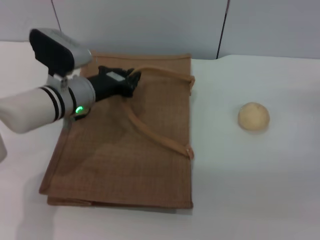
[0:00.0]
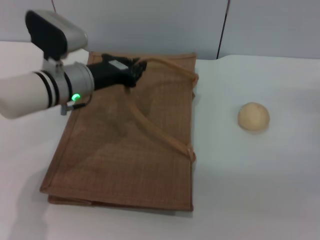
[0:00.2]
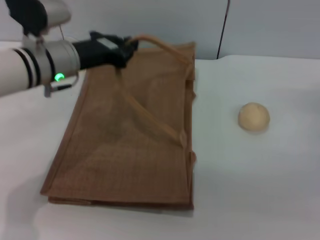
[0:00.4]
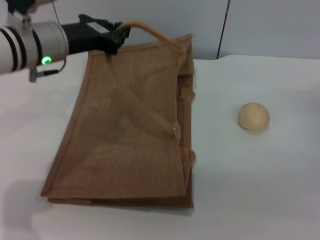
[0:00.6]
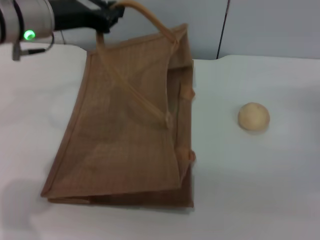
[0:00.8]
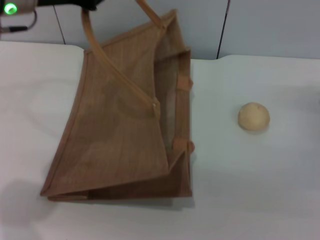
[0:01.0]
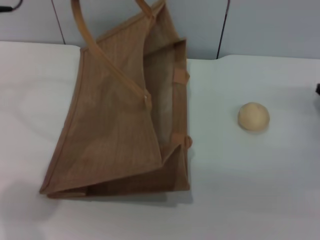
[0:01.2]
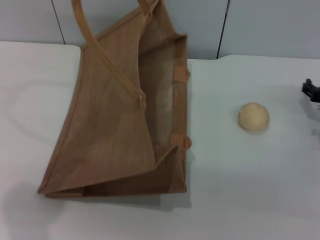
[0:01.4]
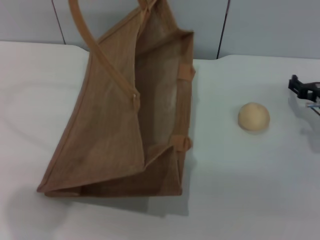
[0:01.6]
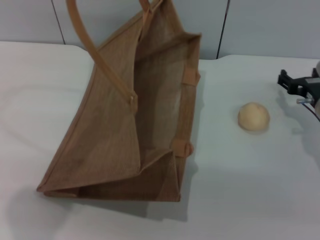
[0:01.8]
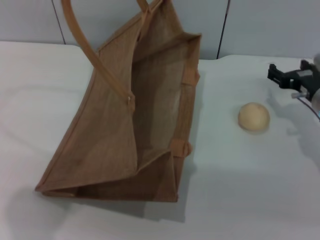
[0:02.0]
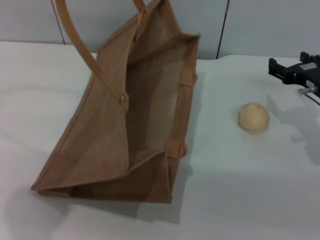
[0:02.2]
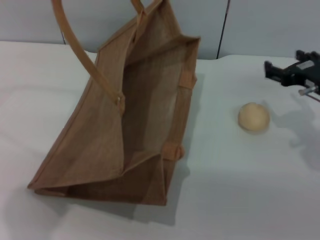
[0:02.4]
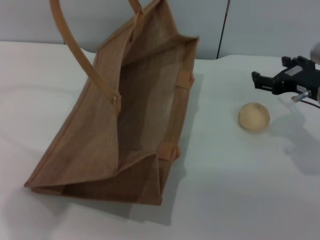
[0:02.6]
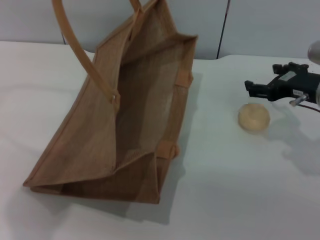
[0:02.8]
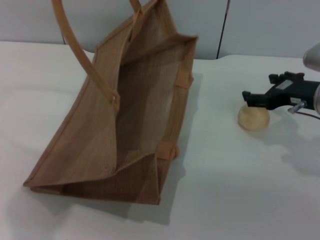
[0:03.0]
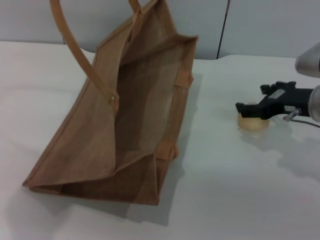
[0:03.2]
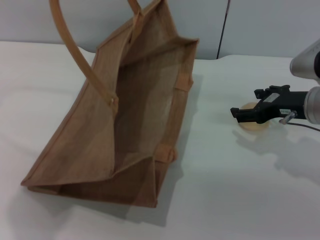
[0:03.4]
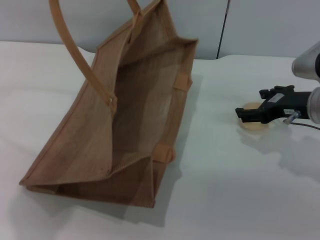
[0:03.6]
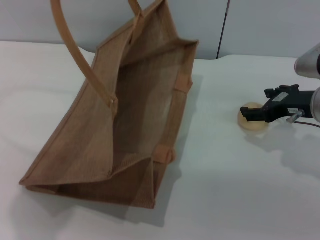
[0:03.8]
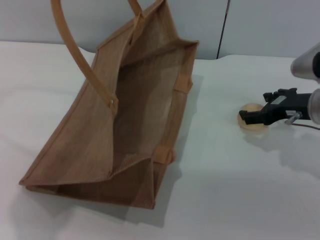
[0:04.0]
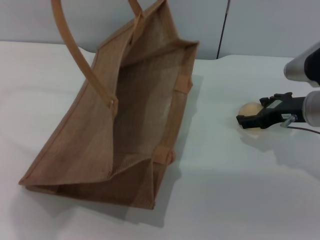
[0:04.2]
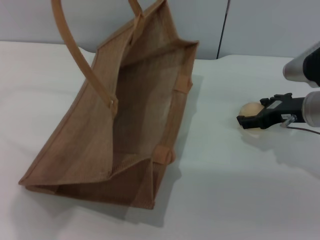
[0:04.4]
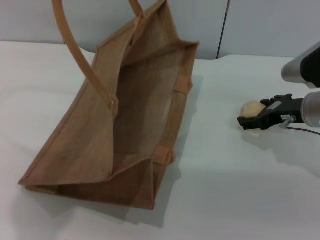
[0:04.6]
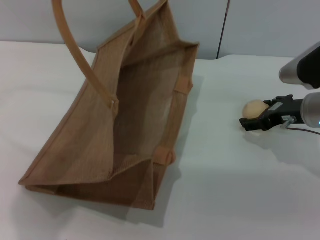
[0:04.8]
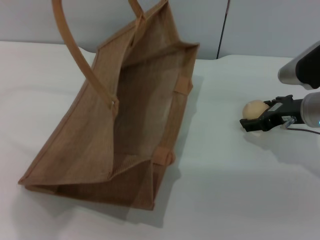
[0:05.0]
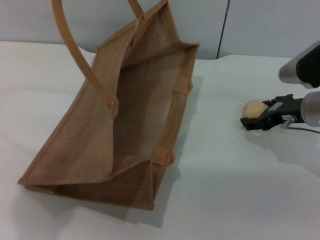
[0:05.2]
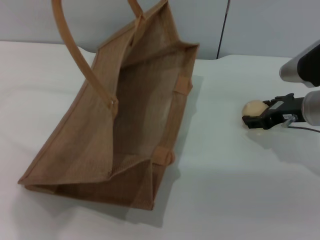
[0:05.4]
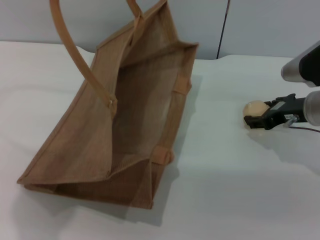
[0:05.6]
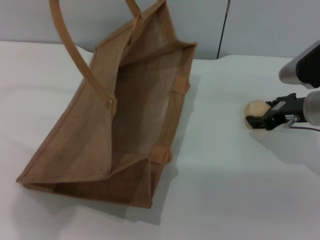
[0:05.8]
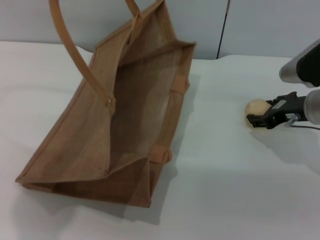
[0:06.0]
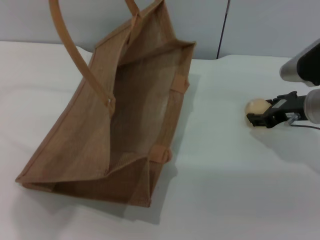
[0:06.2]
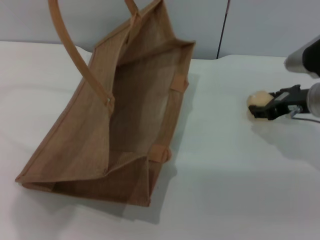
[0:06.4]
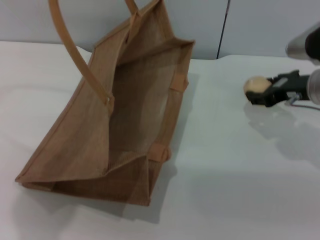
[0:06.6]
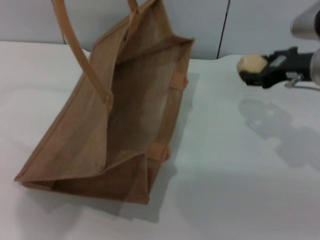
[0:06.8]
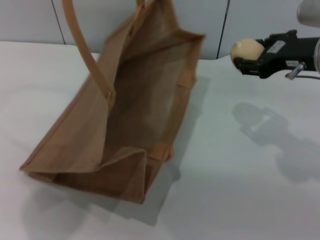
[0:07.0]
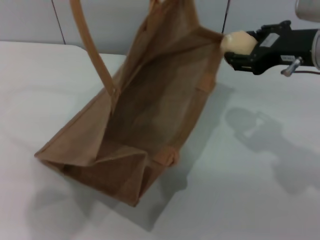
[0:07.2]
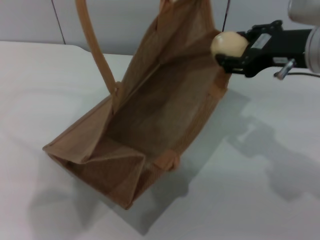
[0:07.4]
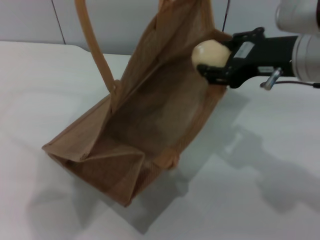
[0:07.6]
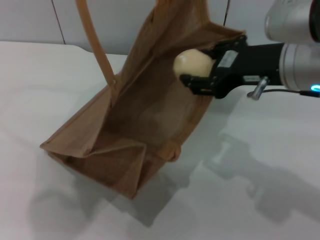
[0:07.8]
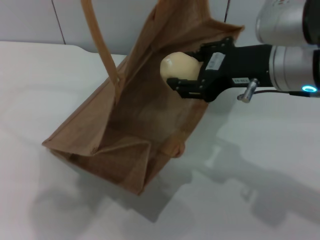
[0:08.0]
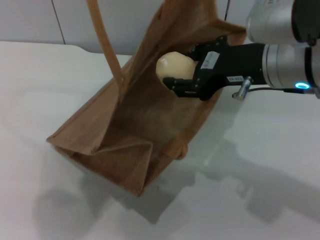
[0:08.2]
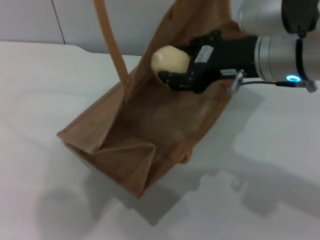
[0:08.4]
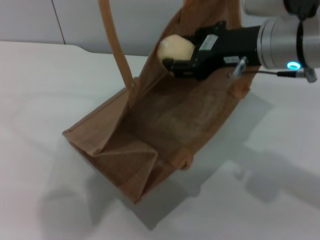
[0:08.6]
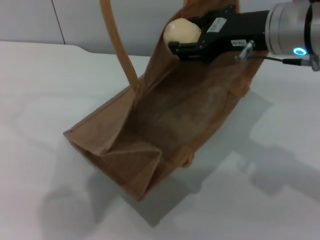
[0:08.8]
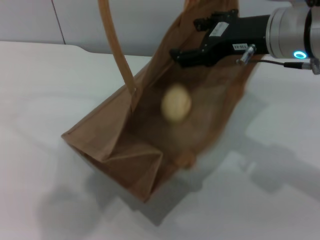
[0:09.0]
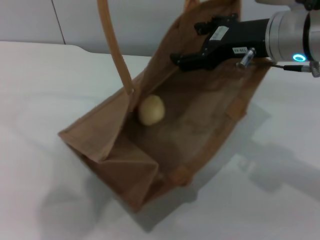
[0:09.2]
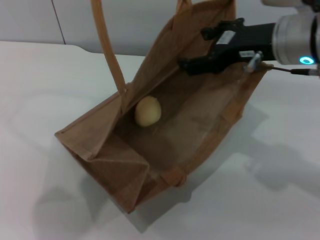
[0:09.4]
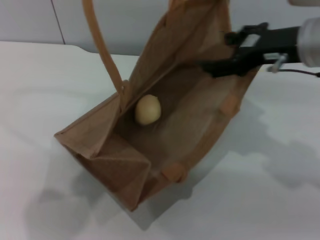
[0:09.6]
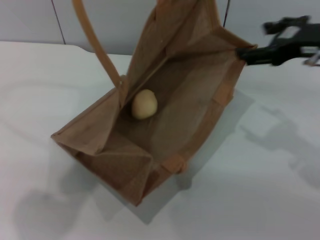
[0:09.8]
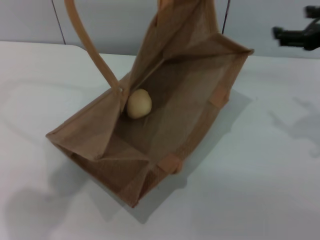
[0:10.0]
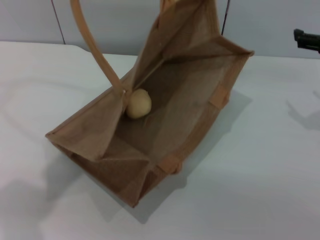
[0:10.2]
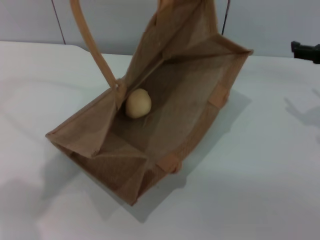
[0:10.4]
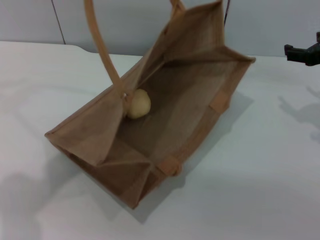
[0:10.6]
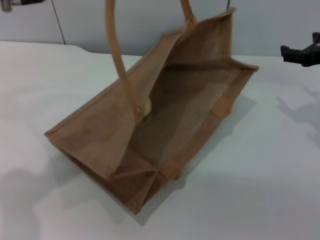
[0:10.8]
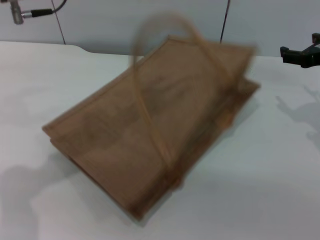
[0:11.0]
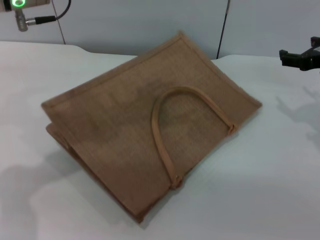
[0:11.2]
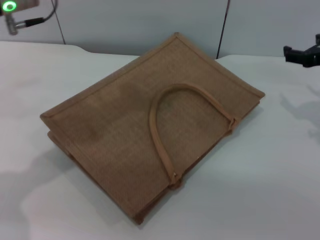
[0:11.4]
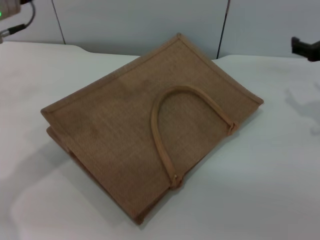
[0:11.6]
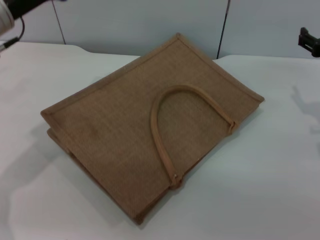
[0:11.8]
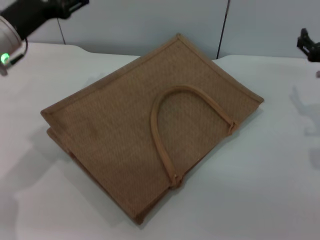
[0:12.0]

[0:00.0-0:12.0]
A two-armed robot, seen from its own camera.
Task of the whole recording: pick up the egg yolk pastry from the table and place it in the brown handbag.
Step, 0:01.6 to 0:06.4: Pick up the egg yolk pastry with the right gripper.
Step, 0:06.8 to 0:09.2: Place the egg yolk pastry into the woven bag with the right gripper.
Step, 0:09.6 to 0:11.2: Lower the woven bag with the left gripper to close it.
0:00.0 to 0:01.6: The left gripper moves upward, roughly 25 cm; the right gripper is displaced to the left by about 5 cm.
0:01.6 to 0:03.0: The right gripper travels upward by roughly 10 cm.
0:03.0 to 0:04.4: The grippers stay close to where they were, moving slightly.
0:04.4 to 0:06.0: The right gripper closes.
0:06.0 to 0:07.6: The right gripper travels upward, to the left and backward by some 15 cm.
0:09.0 to 0:10.4: The right gripper travels to the right and downward by approximately 15 cm, and opens its fingers, while the left gripper is displaced to the left and downward by approximately 10 cm.
0:10.4 to 0:12.0: The right gripper shifts approximately 5 cm downward, while the left gripper moves downward, some 15 cm, and opens.

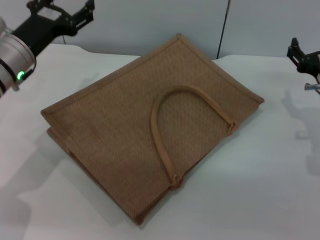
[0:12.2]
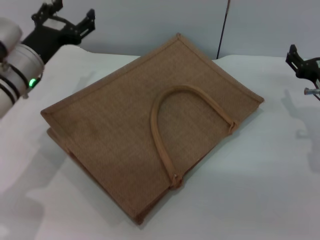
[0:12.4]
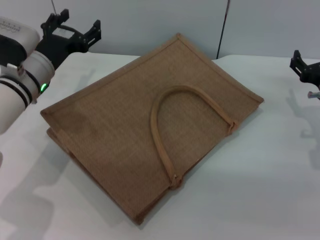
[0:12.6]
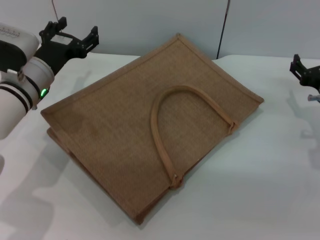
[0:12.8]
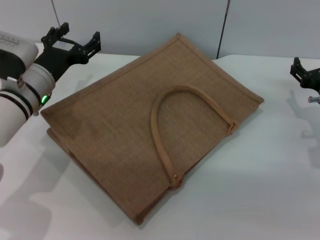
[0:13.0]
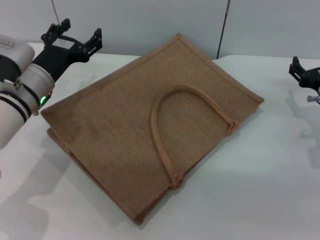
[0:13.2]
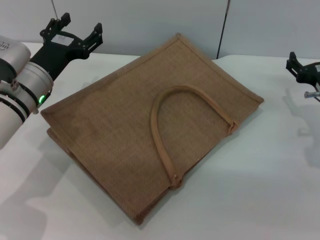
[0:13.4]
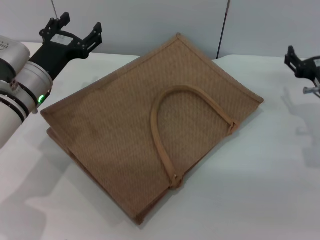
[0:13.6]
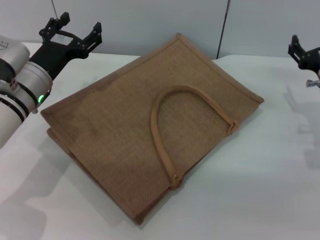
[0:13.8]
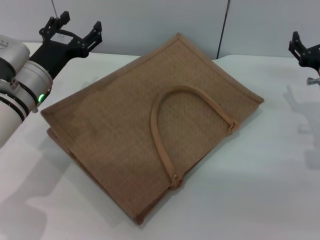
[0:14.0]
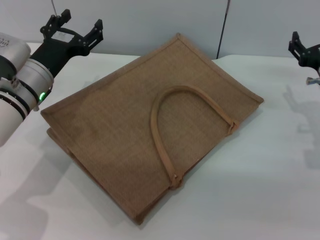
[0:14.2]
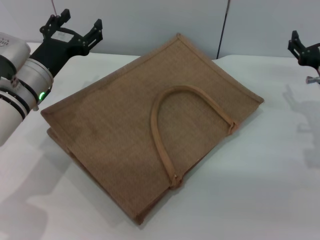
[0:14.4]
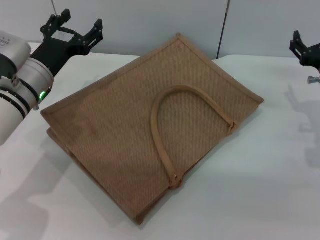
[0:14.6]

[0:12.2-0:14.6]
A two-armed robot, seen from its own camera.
Task of the whole recording: pick up the egg yolk pastry from the table and place it in the brown handbag.
0:12.2 to 0:14.6: The grippers make only small movements.
